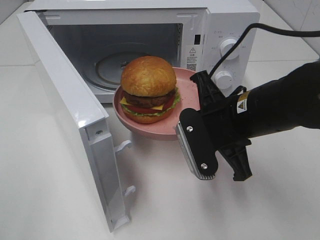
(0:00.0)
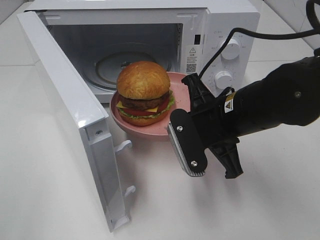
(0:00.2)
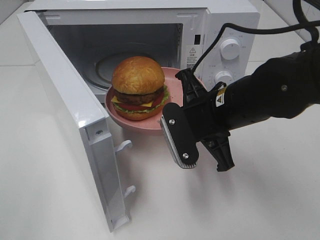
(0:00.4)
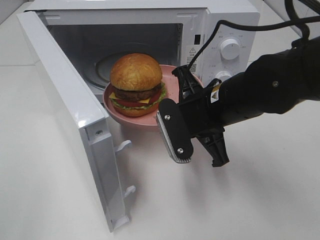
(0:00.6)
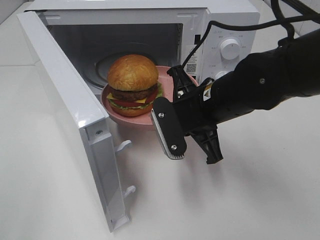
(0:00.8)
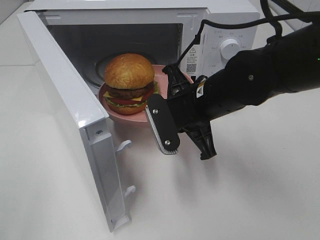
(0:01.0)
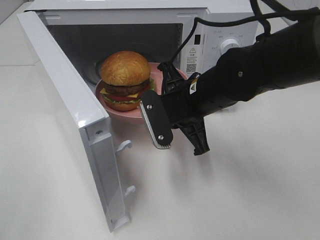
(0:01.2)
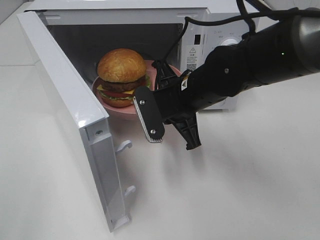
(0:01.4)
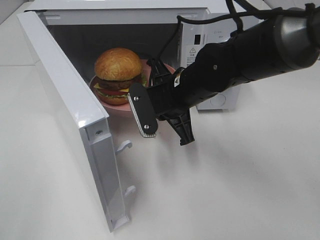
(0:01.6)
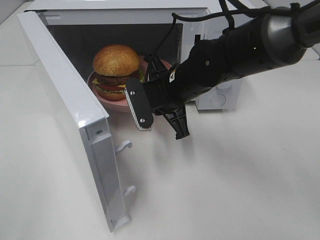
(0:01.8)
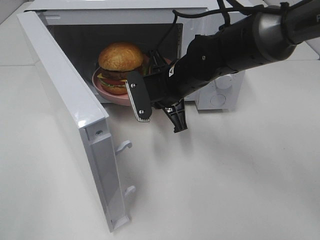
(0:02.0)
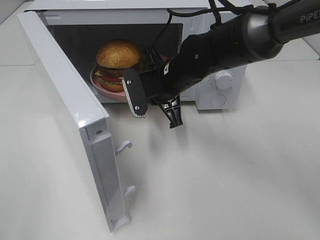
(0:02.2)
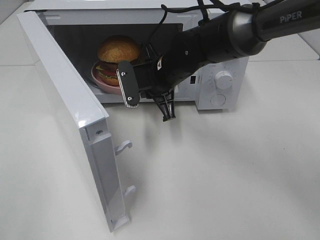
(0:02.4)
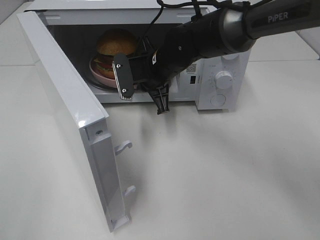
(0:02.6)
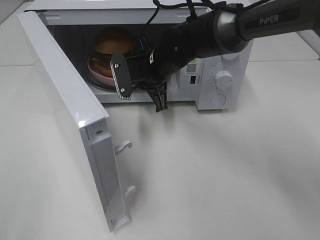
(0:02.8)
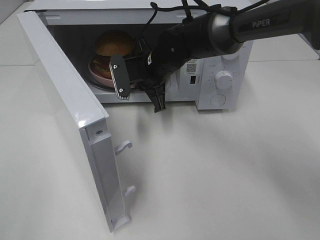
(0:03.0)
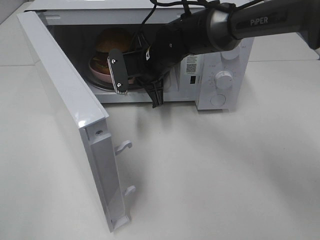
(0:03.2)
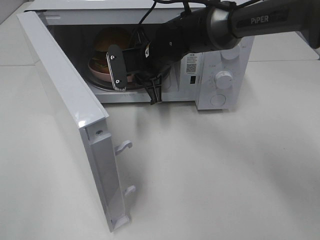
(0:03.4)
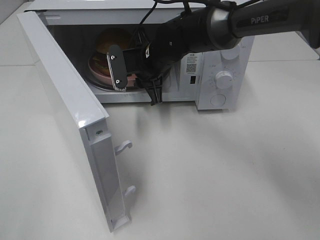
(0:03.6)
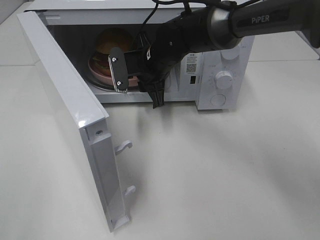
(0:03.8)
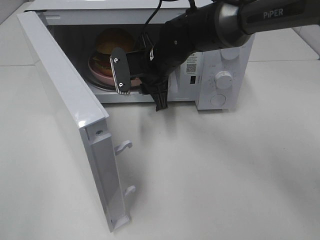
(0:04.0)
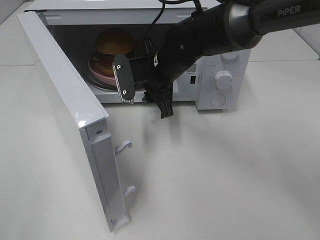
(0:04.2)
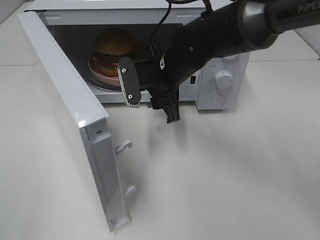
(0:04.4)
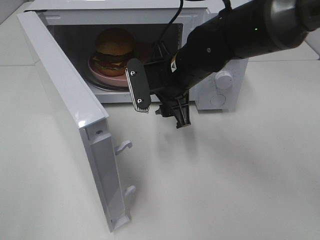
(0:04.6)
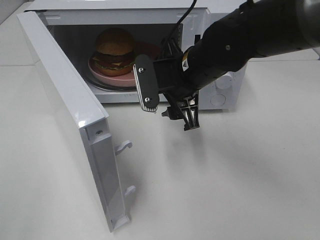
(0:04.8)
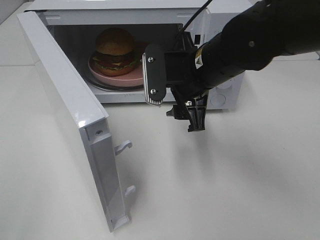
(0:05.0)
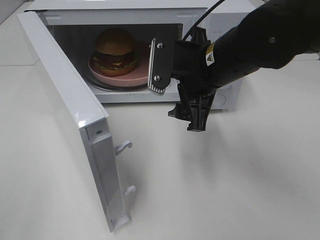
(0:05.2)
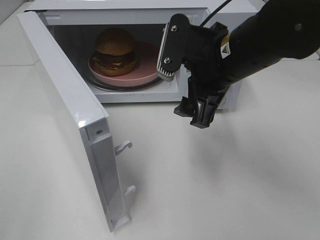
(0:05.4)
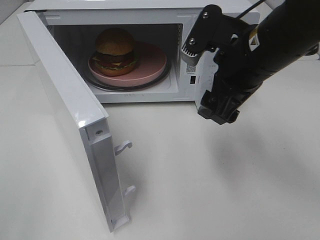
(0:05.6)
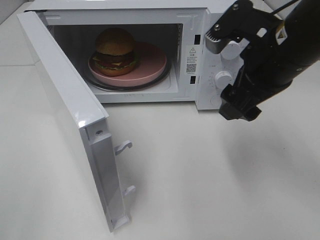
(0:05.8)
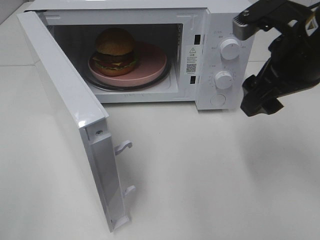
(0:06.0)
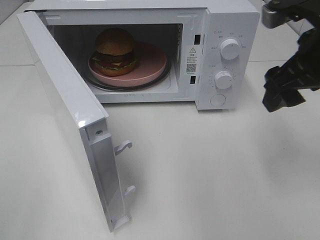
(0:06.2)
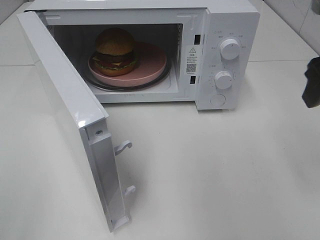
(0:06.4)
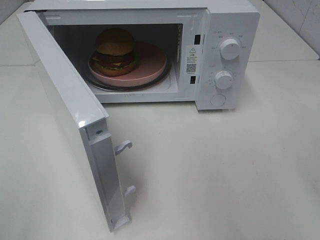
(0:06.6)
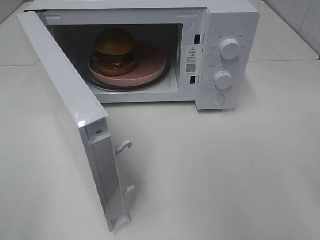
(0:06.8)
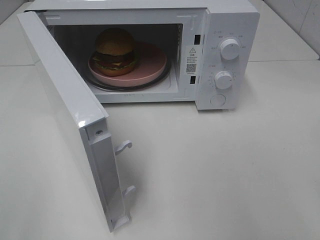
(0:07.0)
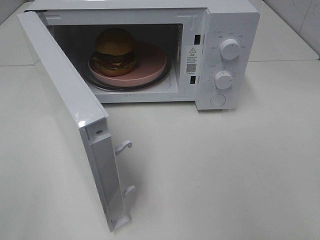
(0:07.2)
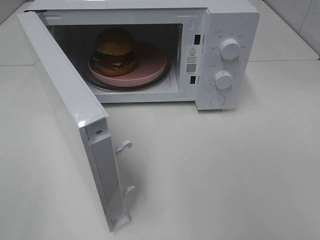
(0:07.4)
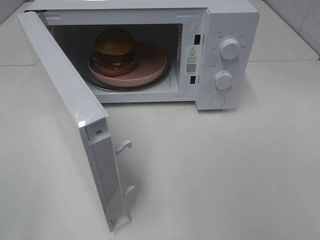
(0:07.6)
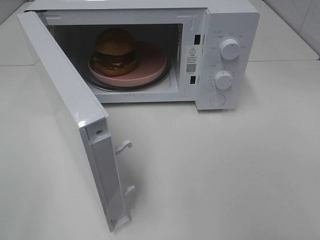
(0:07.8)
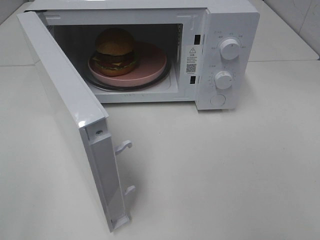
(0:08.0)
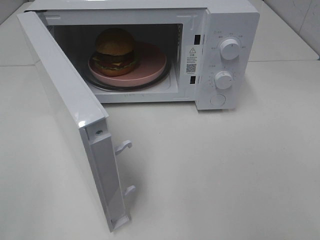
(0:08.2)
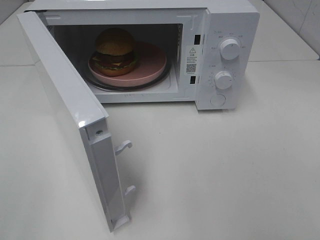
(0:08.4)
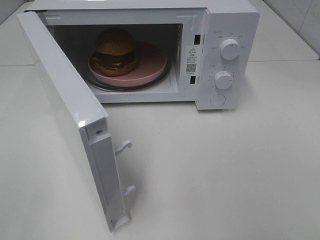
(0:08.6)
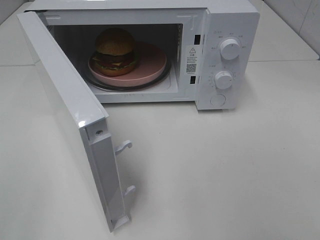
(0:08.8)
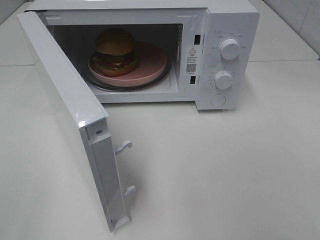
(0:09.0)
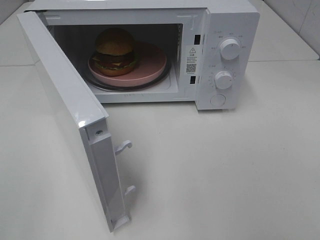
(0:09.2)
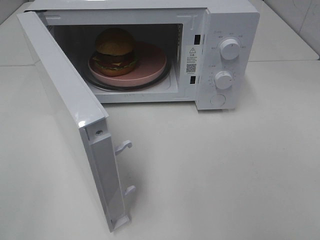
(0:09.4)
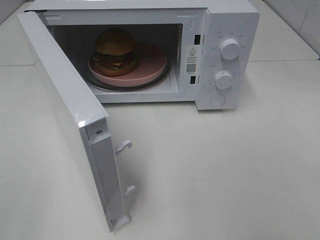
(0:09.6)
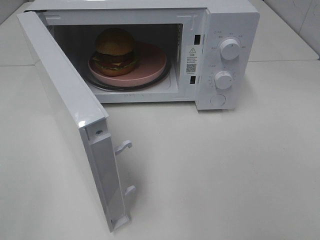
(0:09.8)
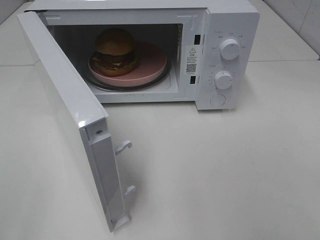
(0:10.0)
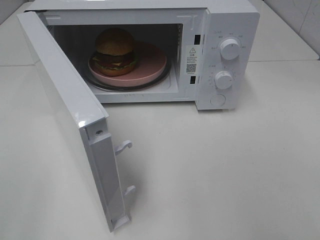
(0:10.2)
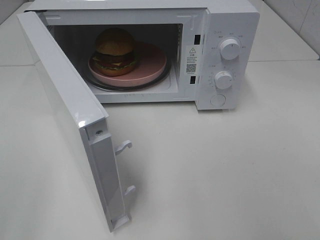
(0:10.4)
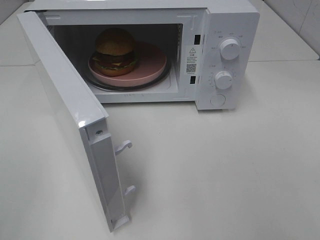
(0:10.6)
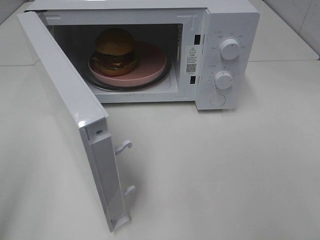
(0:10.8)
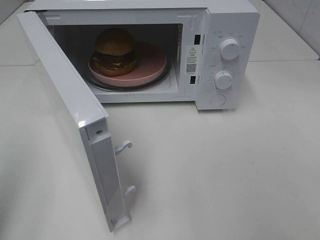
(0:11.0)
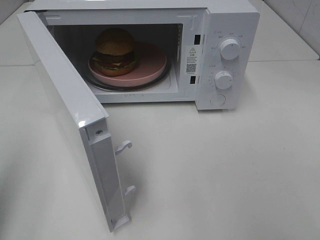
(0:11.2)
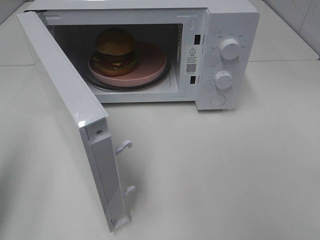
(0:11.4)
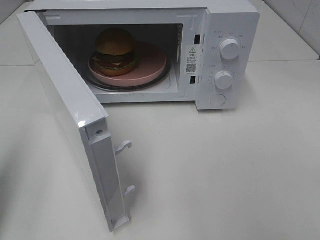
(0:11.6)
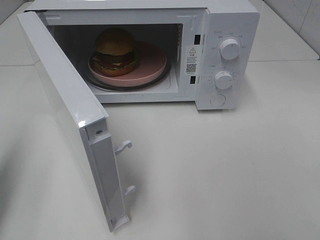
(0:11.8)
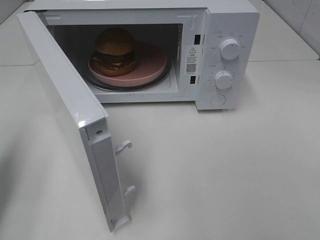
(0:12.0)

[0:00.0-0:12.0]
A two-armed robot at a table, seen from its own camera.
Task of the whole recording: Heat the burger.
Step, 0:00.0 to 0:03.4: Right hand: place the plate in the microwave.
0:00.0 to 0:01.6: The right gripper shifts roughly 10 cm forward and to the left.
0:01.6 to 0:03.0: The right gripper moves forward, about 10 cm.
0:03.0 to 0:04.4: The right gripper is displaced backward by roughly 5 cm, and opens.
0:04.4 to 0:06.0: The right gripper shifts about 20 cm to the right, upward and backward.
0:06.0 to 0:07.6: The right gripper shifts roughly 25 cm backward and to the right.
0:10.4 to 0:12.0: The left gripper heads forward and downward, covering about 20 cm, and closes up.

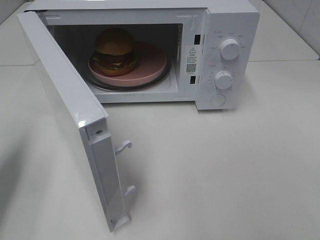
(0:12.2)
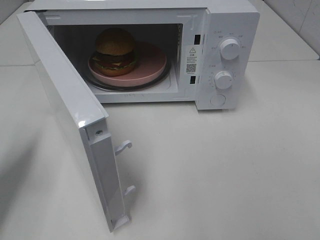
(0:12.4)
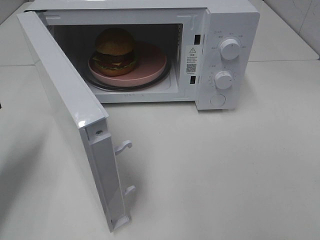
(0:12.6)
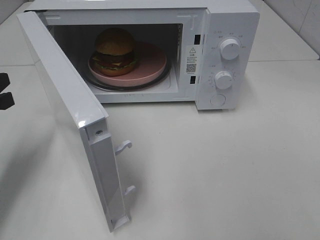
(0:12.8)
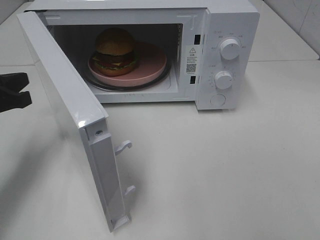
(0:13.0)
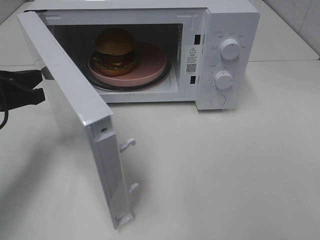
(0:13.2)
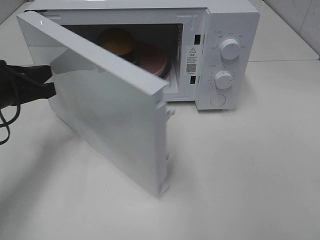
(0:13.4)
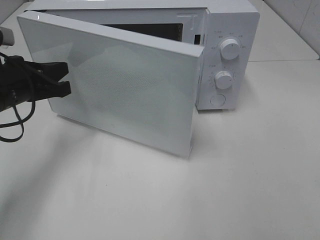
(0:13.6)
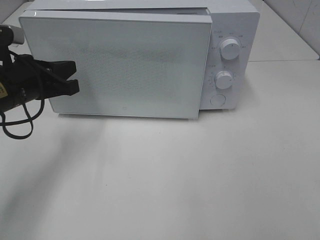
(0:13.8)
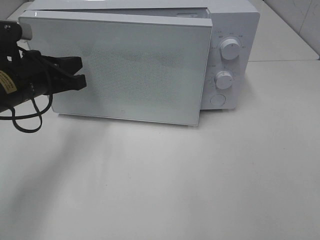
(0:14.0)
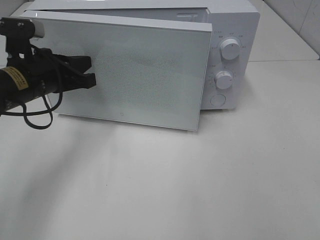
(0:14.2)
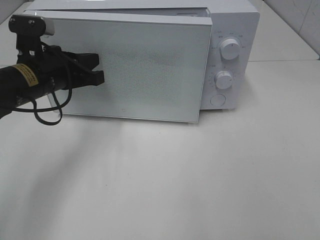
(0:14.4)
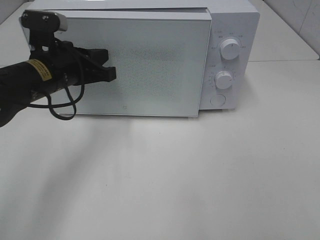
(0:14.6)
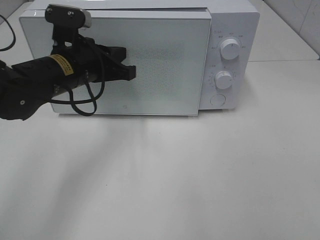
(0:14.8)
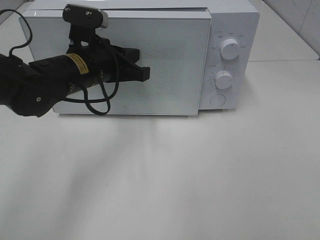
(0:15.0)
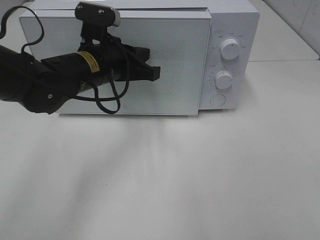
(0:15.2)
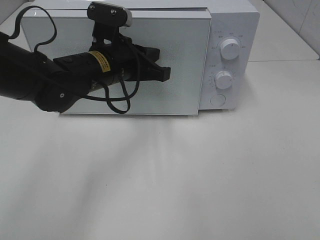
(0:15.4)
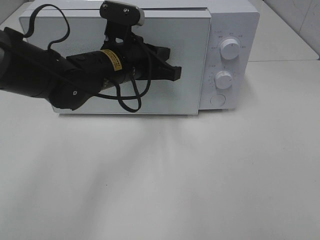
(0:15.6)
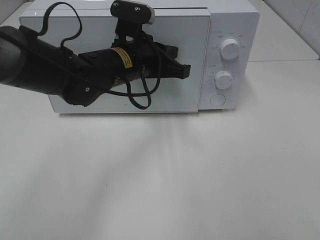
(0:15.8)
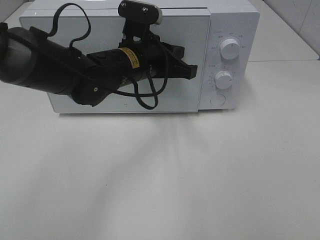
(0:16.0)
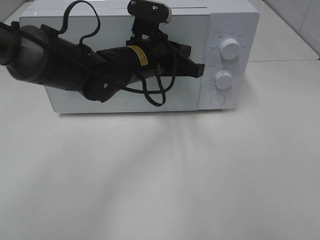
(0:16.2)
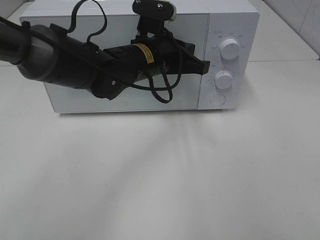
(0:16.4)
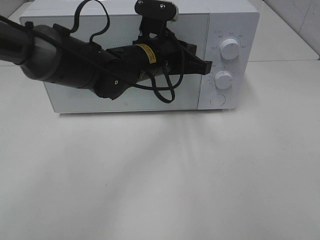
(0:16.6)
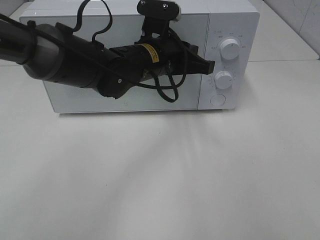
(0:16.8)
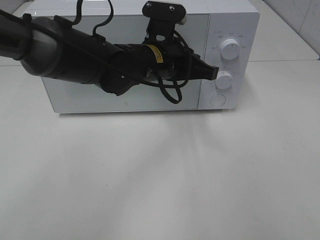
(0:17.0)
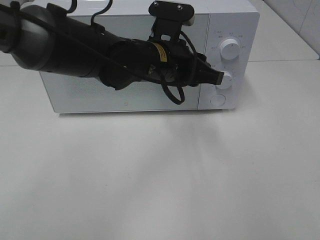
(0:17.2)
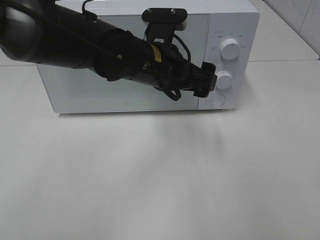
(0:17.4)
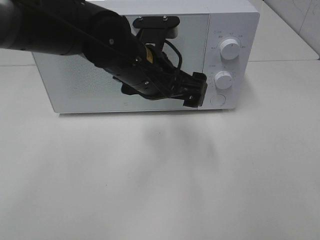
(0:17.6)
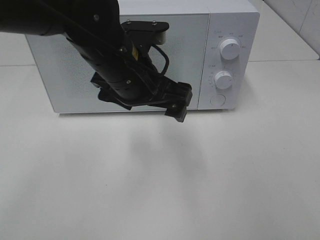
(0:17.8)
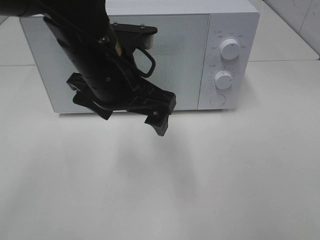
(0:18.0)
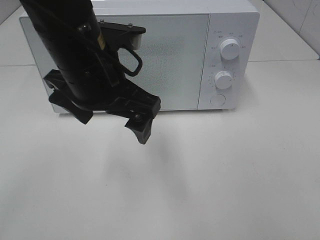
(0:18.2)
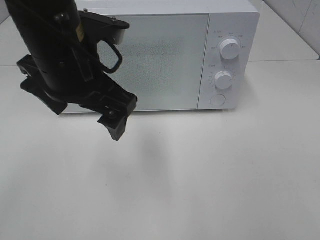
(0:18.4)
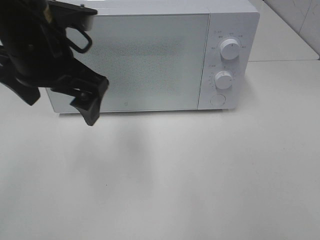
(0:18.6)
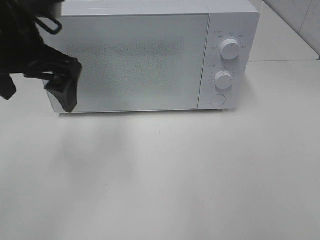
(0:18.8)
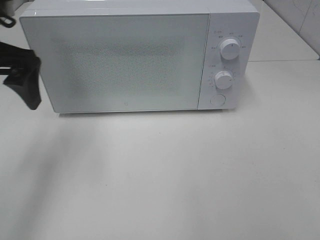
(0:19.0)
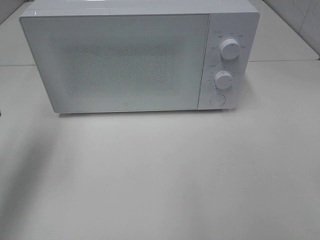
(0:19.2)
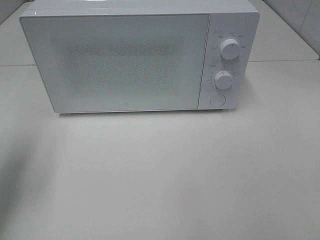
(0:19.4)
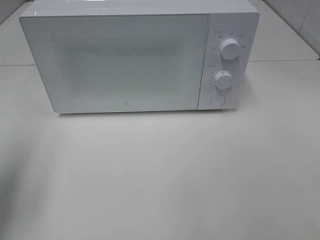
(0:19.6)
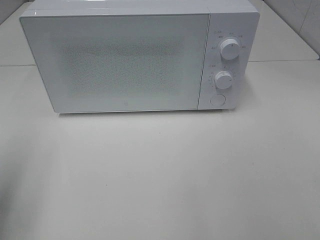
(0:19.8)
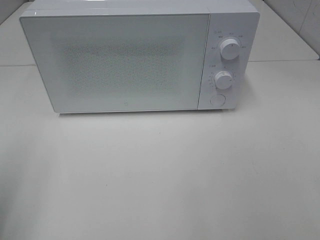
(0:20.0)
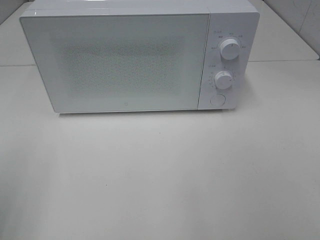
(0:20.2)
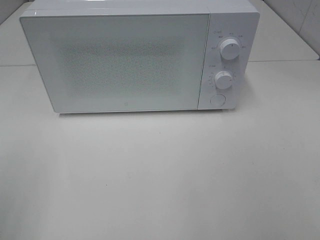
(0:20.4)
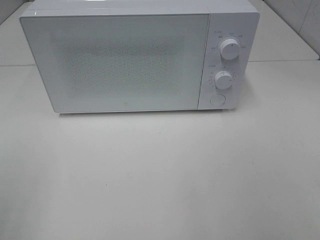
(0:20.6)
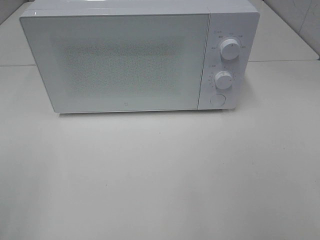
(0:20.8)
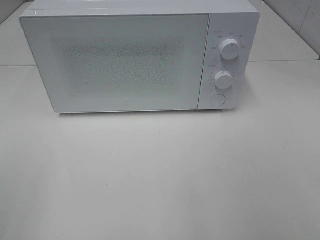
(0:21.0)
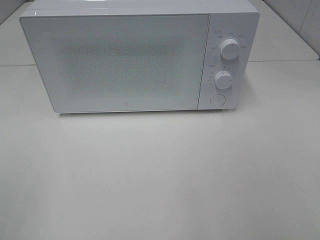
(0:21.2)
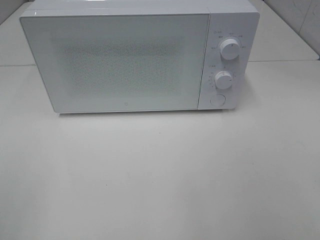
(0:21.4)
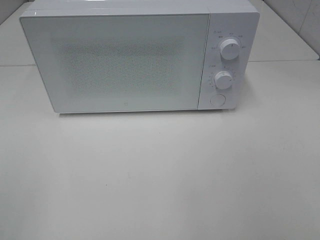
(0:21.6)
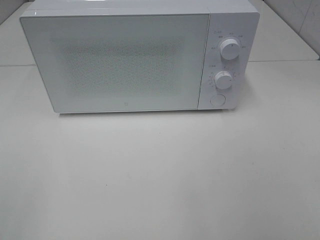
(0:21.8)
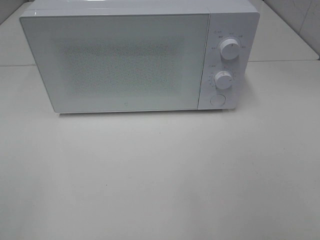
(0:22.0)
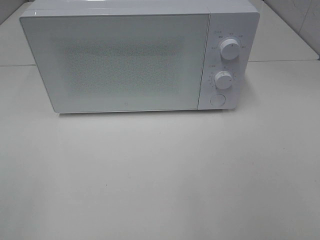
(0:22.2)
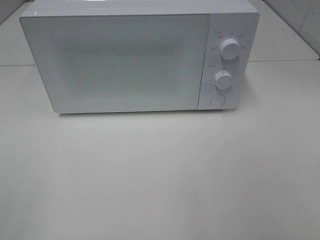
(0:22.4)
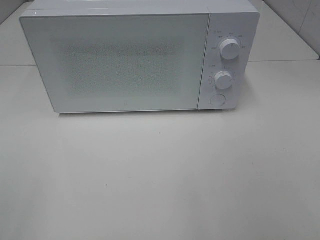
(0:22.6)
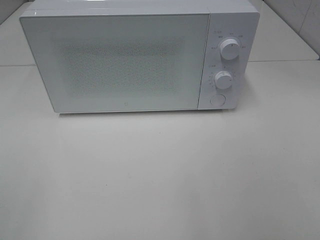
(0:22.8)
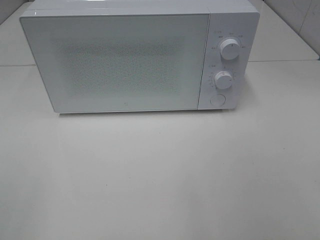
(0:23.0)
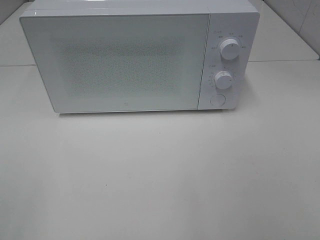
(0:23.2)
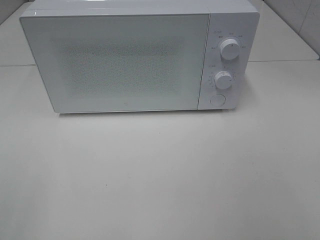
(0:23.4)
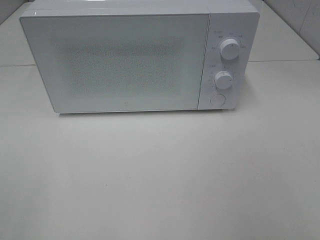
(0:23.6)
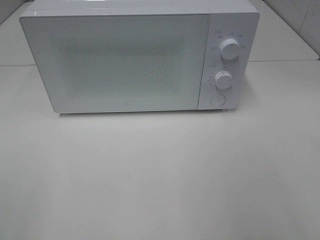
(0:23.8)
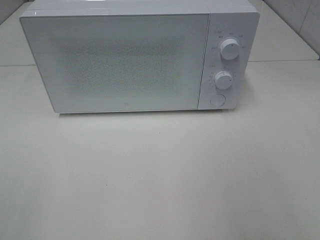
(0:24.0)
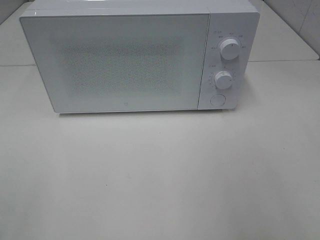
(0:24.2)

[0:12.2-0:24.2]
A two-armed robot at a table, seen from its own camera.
Task of the whole recording: Heat the burger.
Step, 0:12.2 to 0:16.8: Left hand: close the microwave door.
0:12.2 to 0:13.8: The left gripper travels to the right and forward by some 15 cm.
0:13.8 to 0:15.2: The left gripper travels to the right by about 10 cm.
0:15.2 to 0:16.6: The left gripper heads to the right, covering some 10 cm.
0:16.6 to 0:18.2: The left gripper heads backward, upward and to the left, covering some 15 cm, and opens up.
0:18.2 to 0:19.8: The left gripper shifts about 25 cm to the left.
0:19.8 to 0:21.2: The left gripper moves backward, approximately 15 cm.
